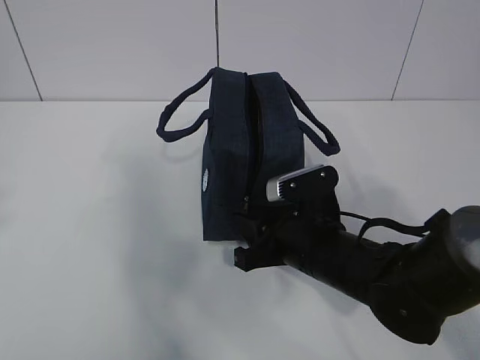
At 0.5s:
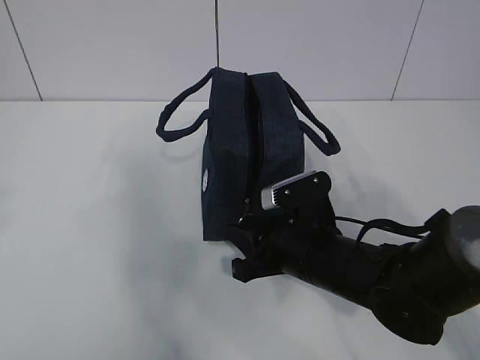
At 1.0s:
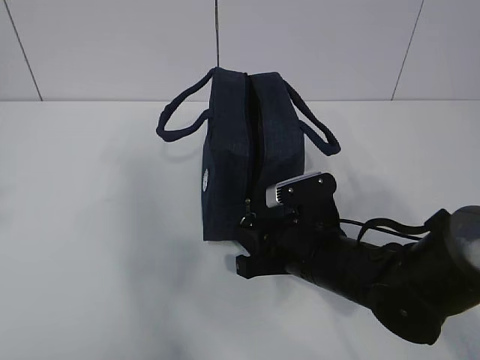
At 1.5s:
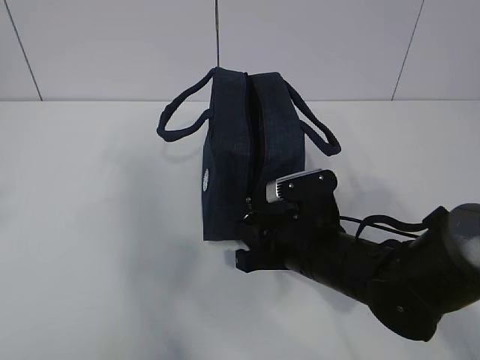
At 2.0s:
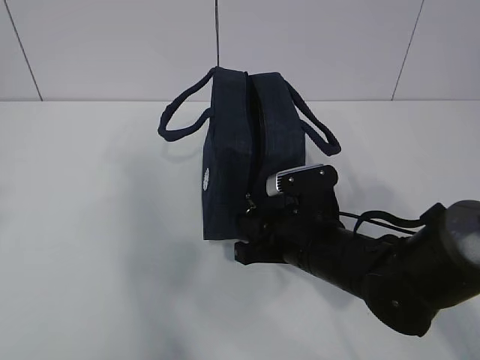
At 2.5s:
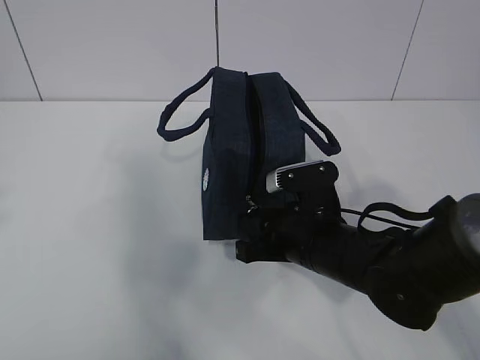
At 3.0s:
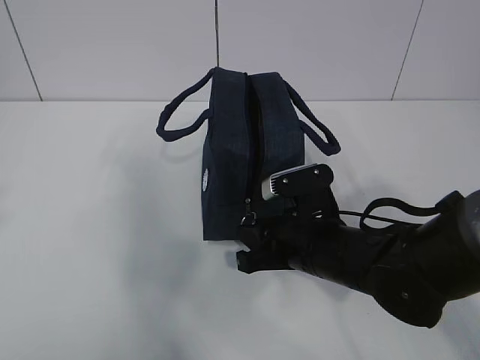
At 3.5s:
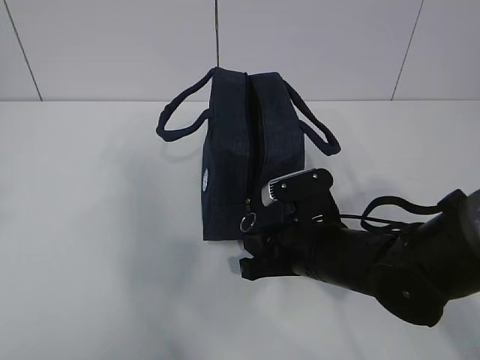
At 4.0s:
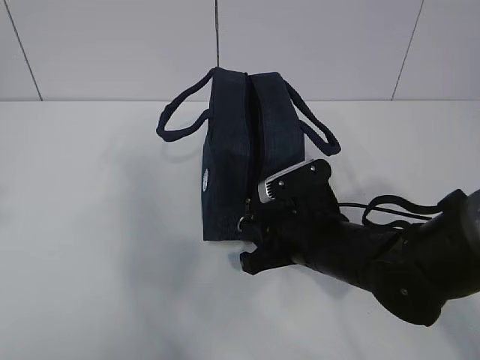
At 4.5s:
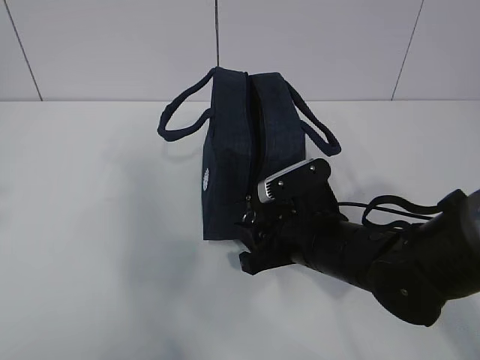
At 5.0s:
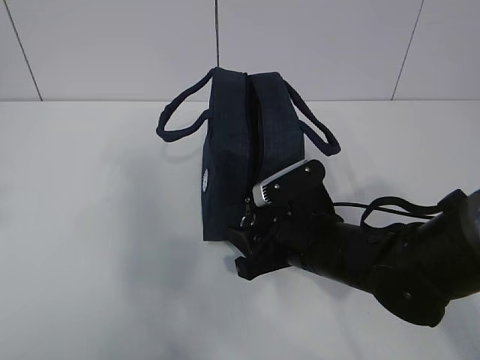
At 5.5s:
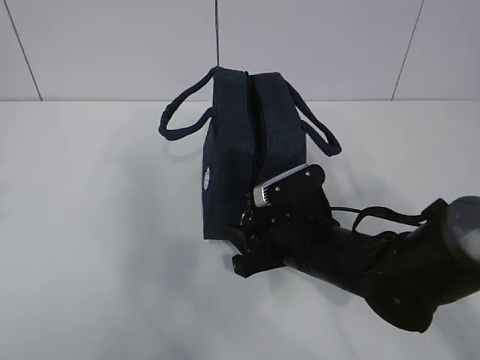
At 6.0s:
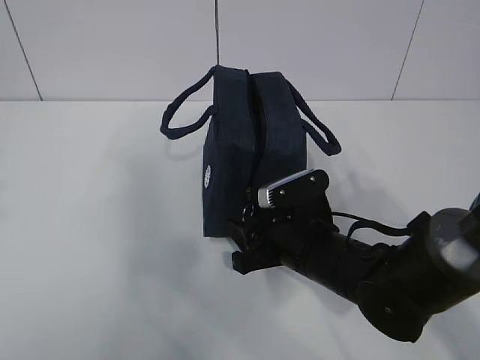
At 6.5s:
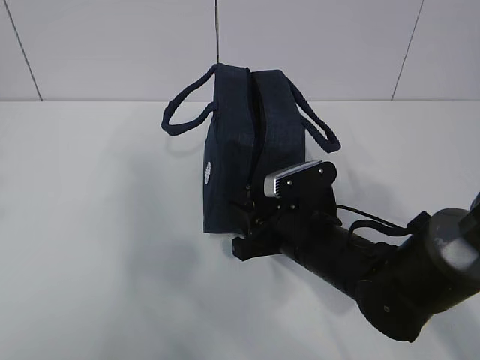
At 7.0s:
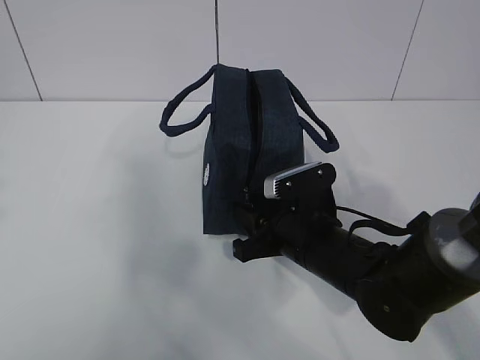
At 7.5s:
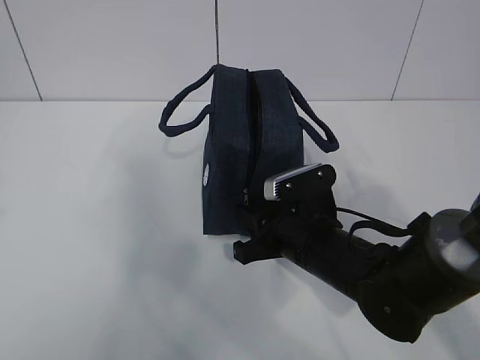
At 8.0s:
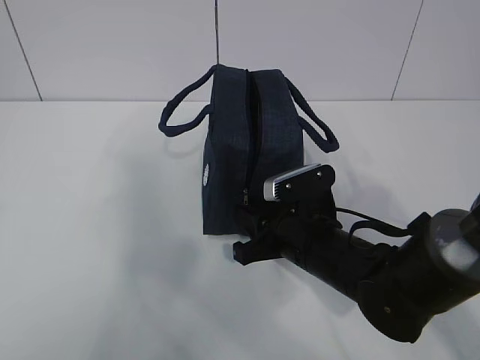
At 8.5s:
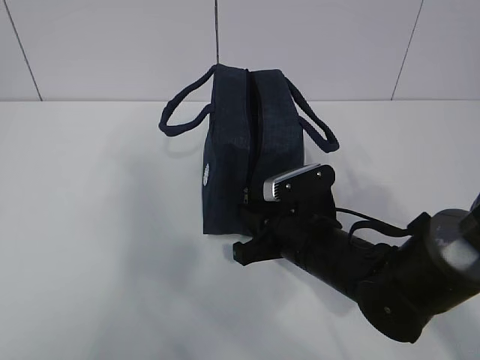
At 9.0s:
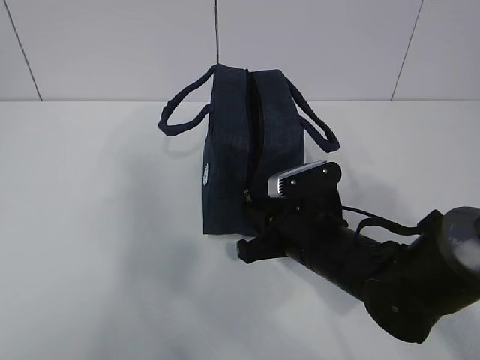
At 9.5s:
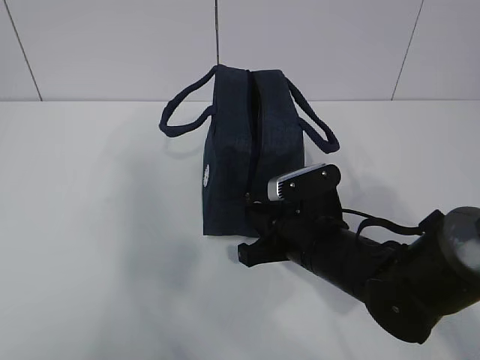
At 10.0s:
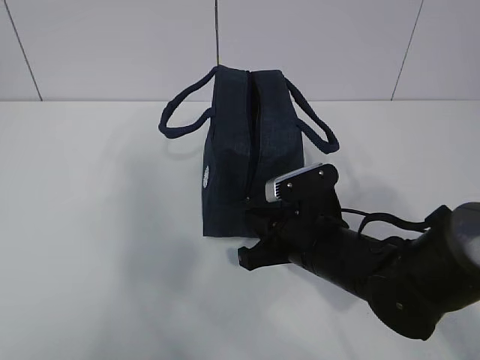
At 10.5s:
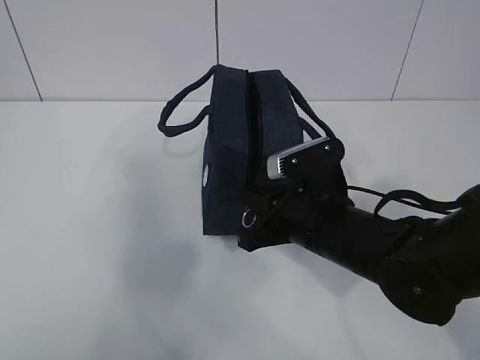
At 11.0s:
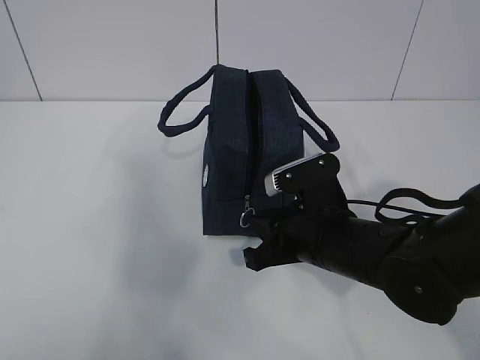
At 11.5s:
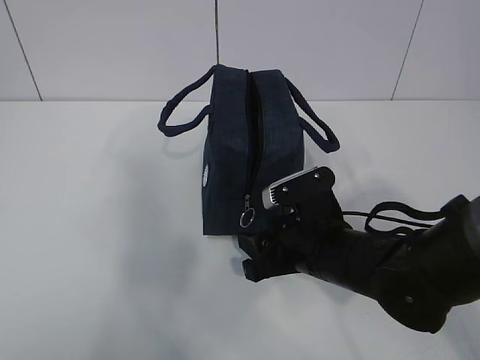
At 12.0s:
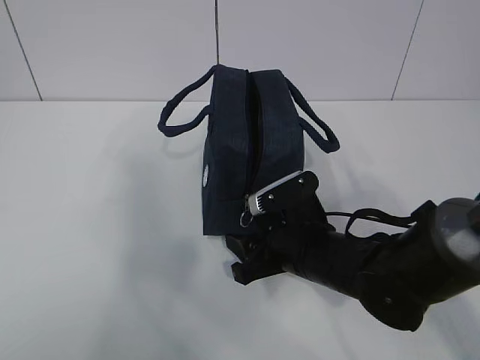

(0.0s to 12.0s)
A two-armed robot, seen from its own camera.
0.0s - 4.0s: The grippers make only small movements.
4.0s - 6.0s: The right gripper opens.
6.0s - 8.0s: The right gripper closes.
8.0s - 10.0s: The right gripper closes up.
10.0s - 12.0s: The right gripper opens.

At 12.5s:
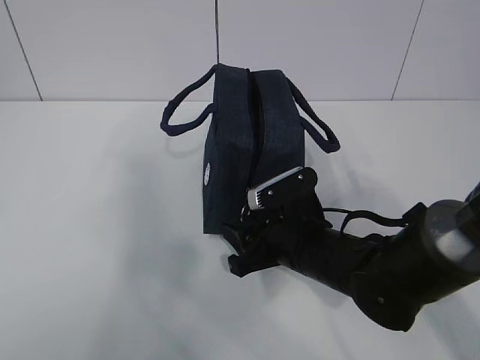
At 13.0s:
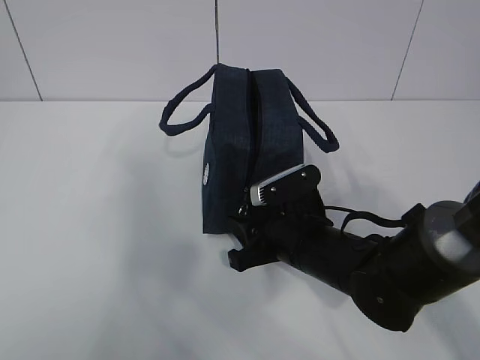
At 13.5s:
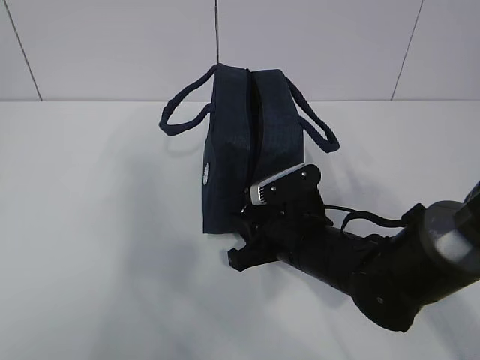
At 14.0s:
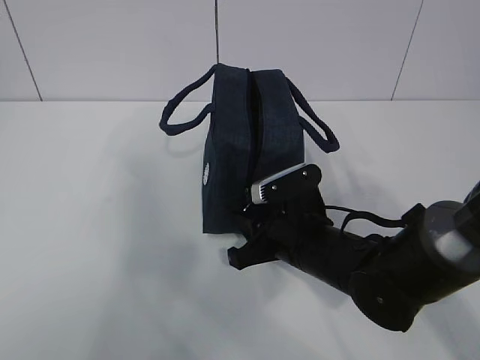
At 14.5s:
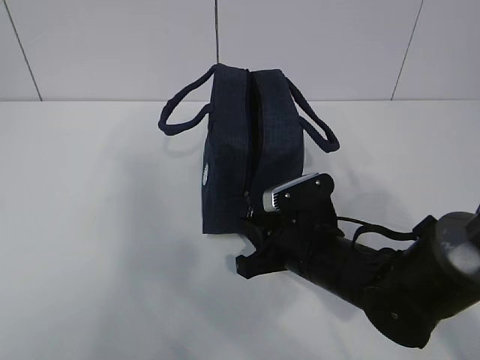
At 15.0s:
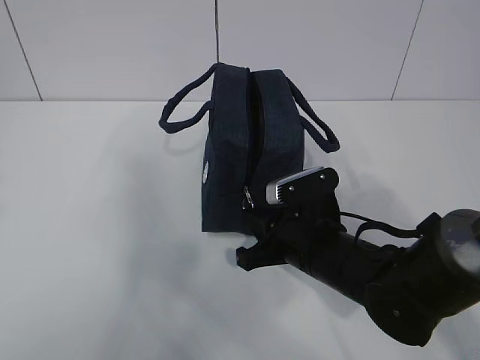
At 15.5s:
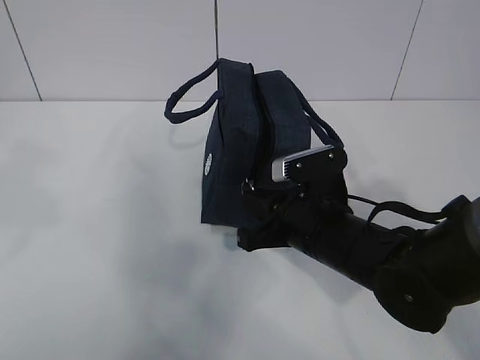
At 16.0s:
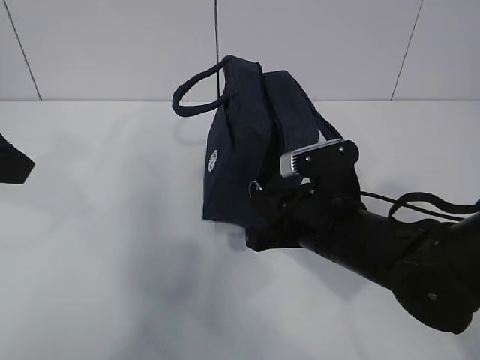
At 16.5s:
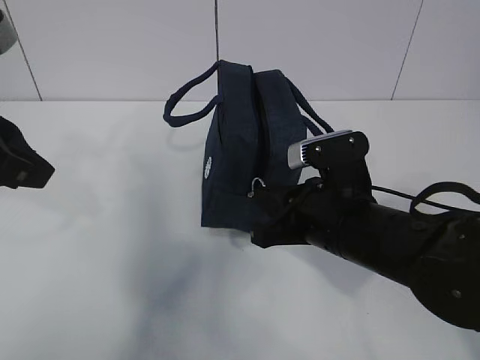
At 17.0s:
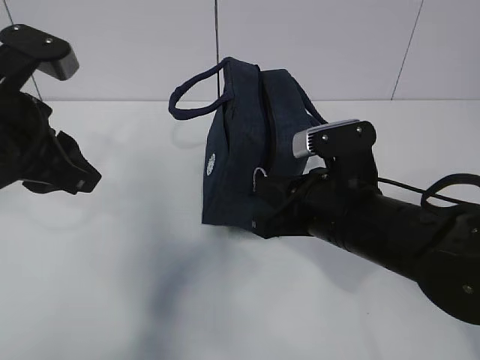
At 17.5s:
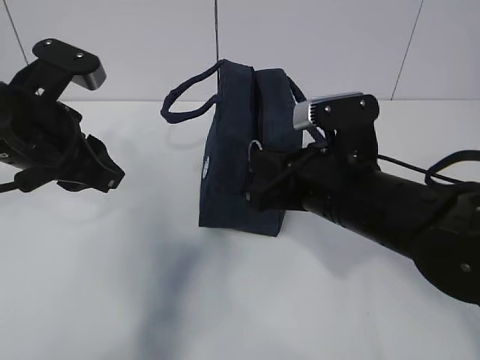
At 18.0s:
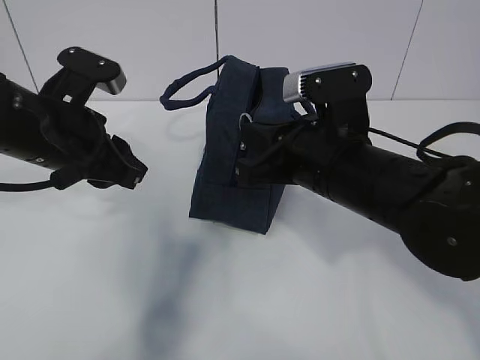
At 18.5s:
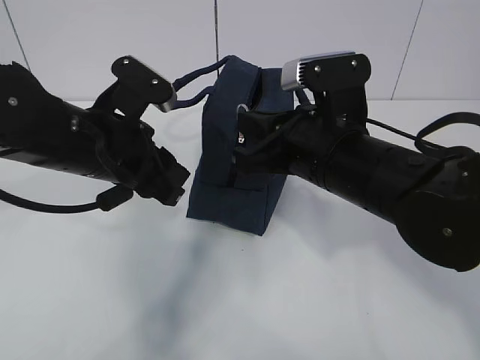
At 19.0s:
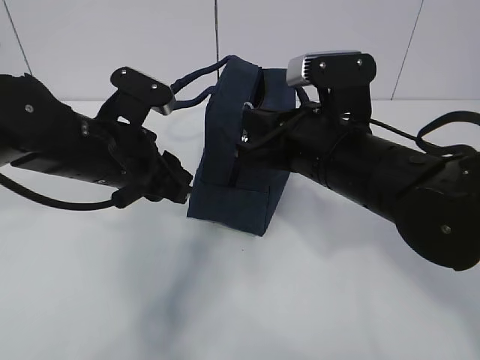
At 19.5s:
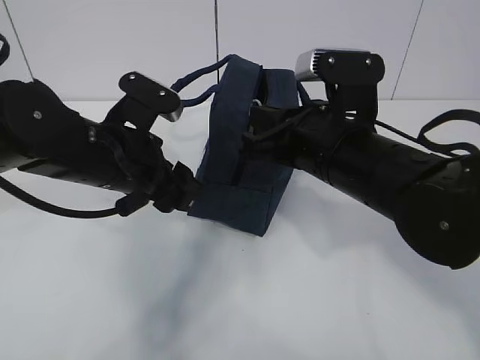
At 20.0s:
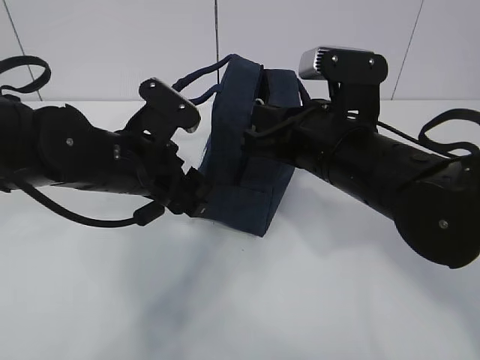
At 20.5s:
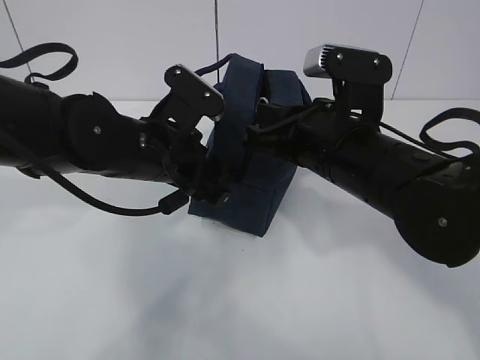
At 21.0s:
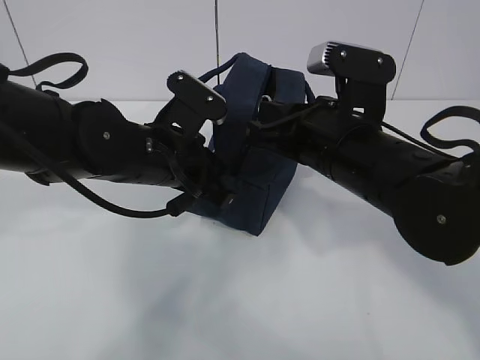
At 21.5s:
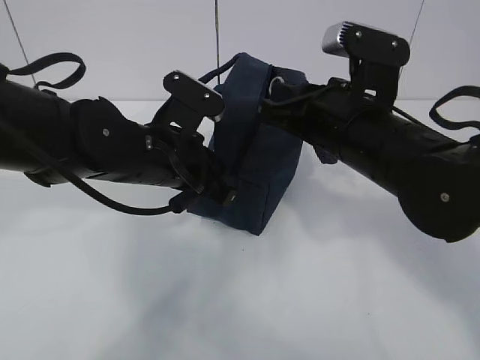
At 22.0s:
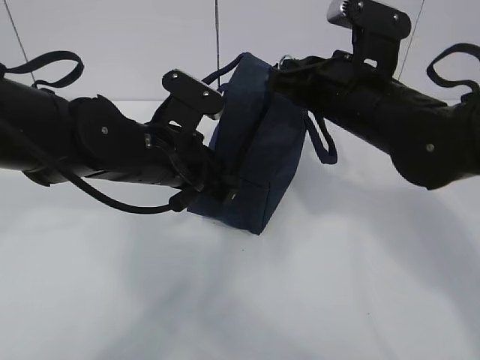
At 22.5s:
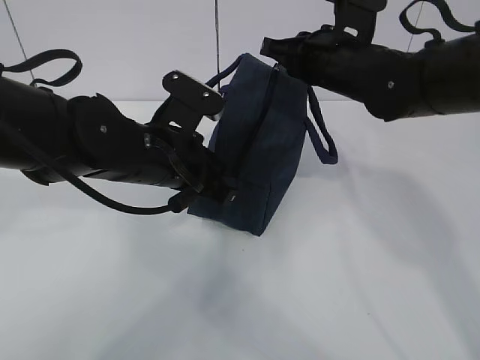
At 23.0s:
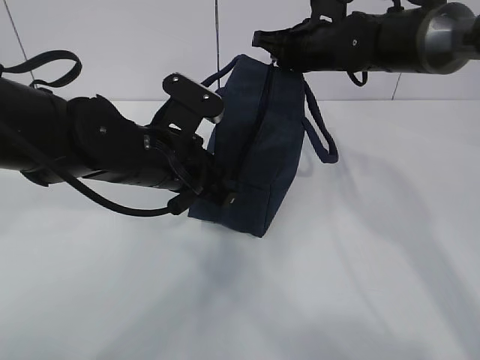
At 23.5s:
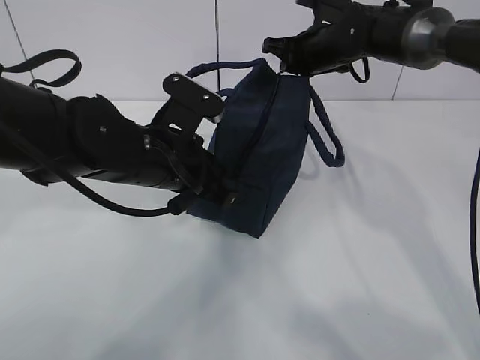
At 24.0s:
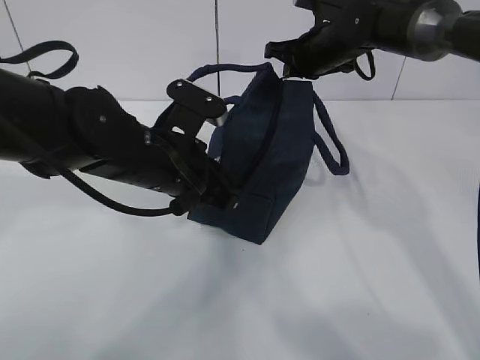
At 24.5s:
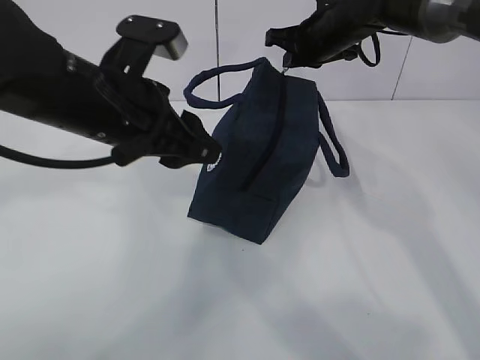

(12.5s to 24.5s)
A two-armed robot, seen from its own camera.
Step, 12.5s - 15.5s: Pull the zipper with your right hand.
12.5s - 14.5s: The right gripper closes its fingers.
14.5s - 16.5s: The right gripper travels upward by some 5 cm. The left gripper travels forward, downward and to the right by roughly 20 cm.
16.5s - 18.5s: The left gripper moves downward, to the right and forward, roughly 15 cm. Meanwhile the right gripper travels upward by approximately 5 cm.
18.5s - 20.5s: The left gripper ends up roughly 5 cm from where it was, and opens.
20.5s - 22.5s: The left gripper closes, while the right gripper goes approximately 10 cm forward.
22.5s - 24.5s: The right gripper is displaced forward by roughly 10 cm. Meanwhile the left gripper heads upward, covering about 10 cm, and opens.

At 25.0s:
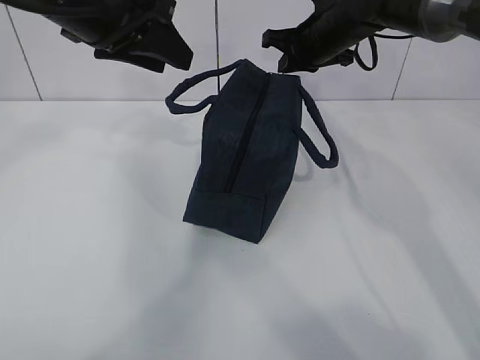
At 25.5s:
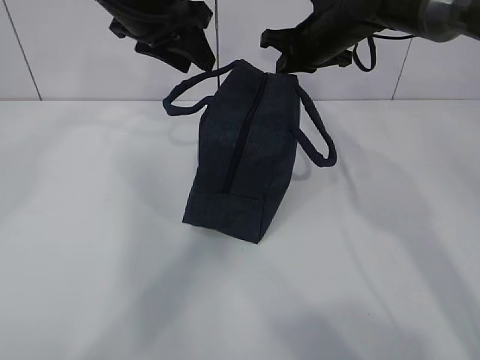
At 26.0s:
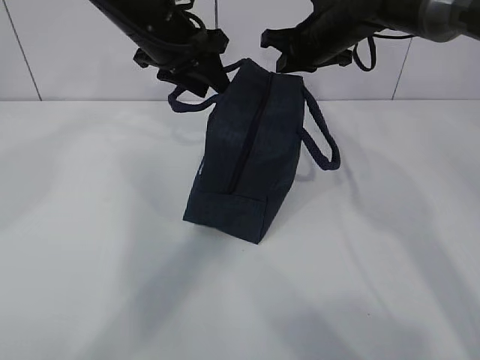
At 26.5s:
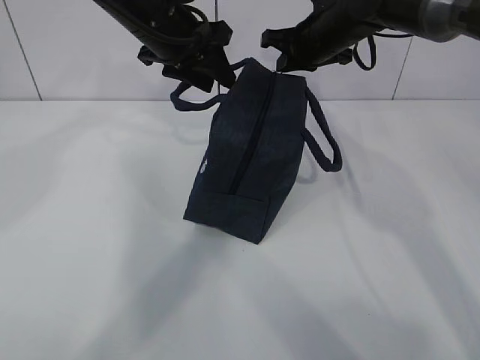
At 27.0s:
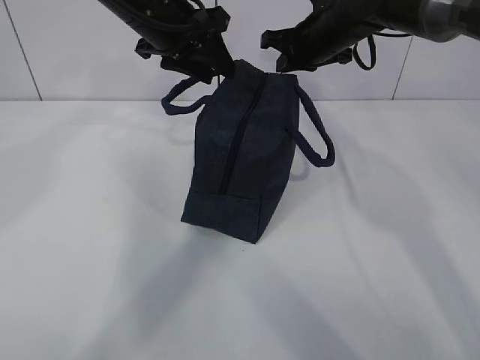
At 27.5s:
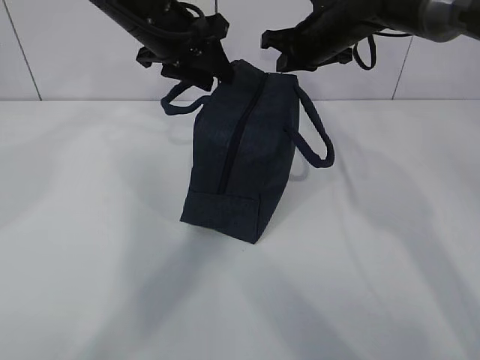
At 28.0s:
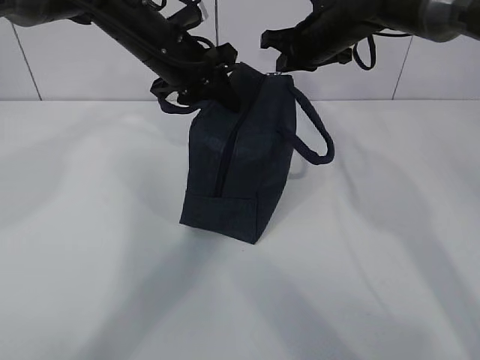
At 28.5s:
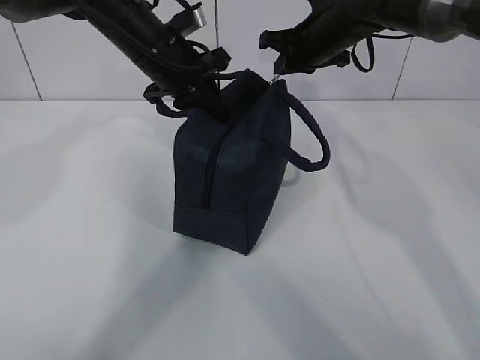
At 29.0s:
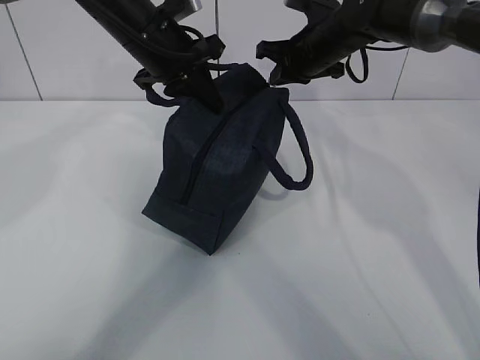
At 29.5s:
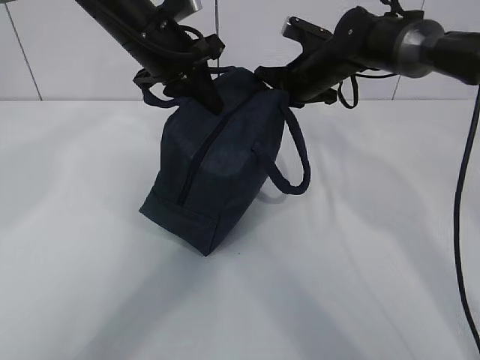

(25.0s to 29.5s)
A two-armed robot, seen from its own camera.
25.0s - 27.0s: The left gripper is displaced forward by approximately 10 cm.
27.0s - 29.5s: The right gripper heads downward, covering roughly 5 cm, while the left gripper closes up.
